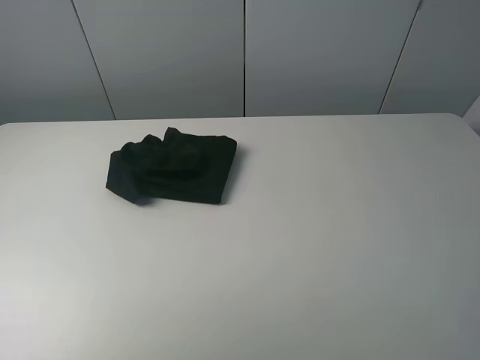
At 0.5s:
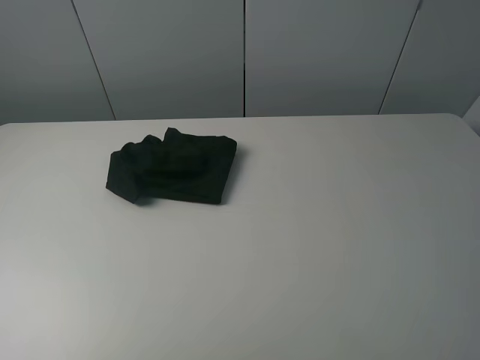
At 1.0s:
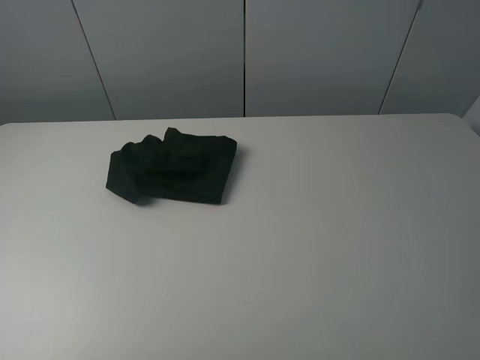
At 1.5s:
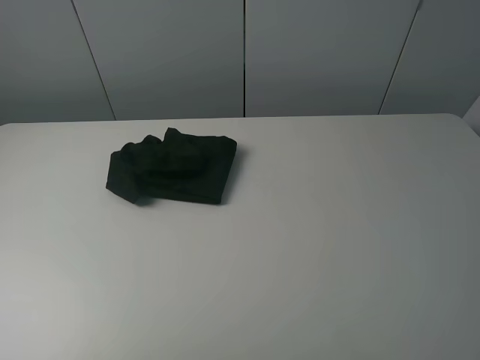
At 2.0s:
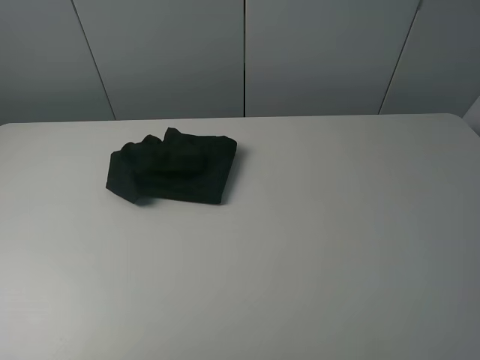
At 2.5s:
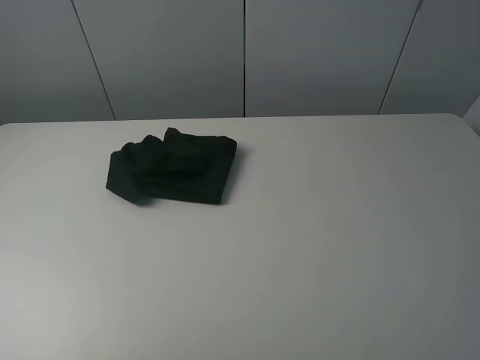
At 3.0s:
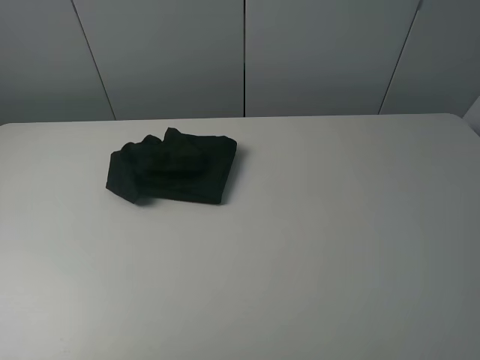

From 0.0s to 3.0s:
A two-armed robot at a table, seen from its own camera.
Task of the whole recording: fold the clothes on the table.
From 0.0s to 1.5s: The right gripper heads backward and downward, covering roughly 10 cm; the left gripper goes approximately 5 cm backward.
